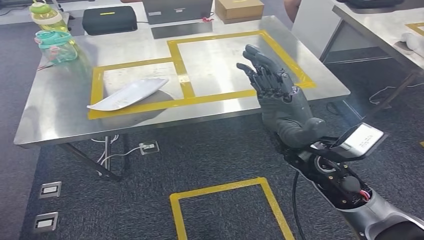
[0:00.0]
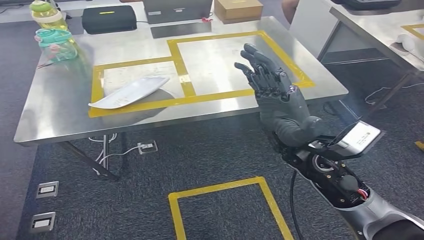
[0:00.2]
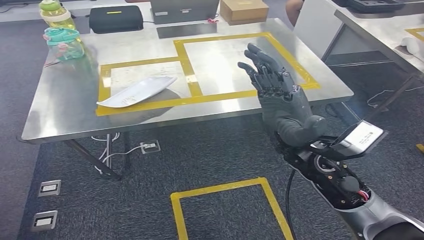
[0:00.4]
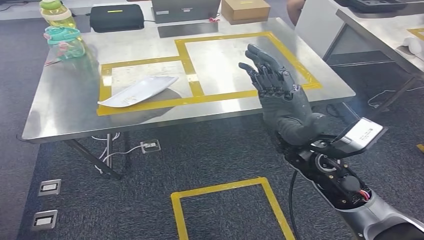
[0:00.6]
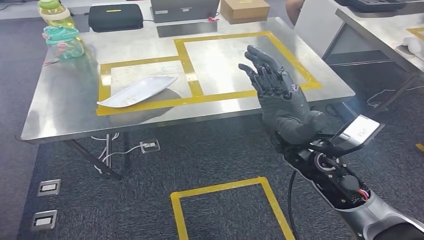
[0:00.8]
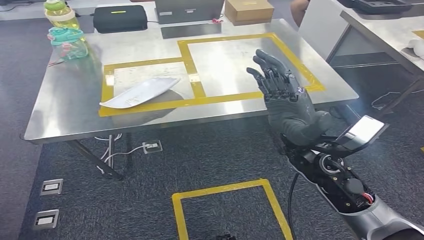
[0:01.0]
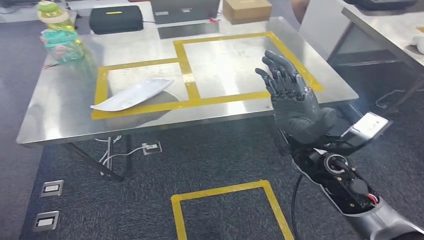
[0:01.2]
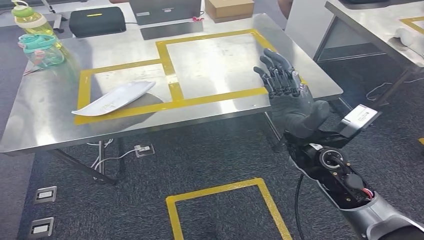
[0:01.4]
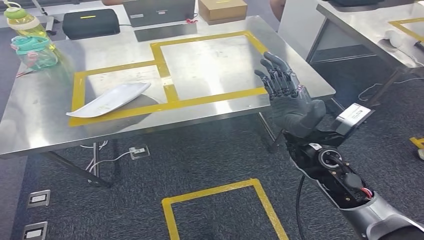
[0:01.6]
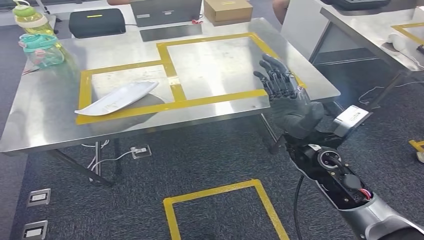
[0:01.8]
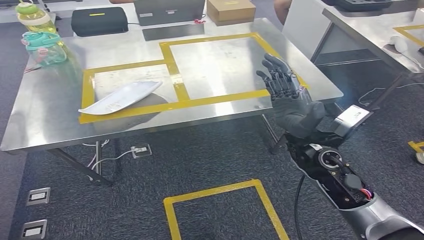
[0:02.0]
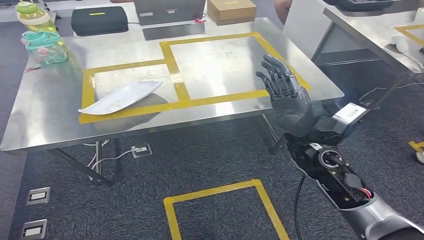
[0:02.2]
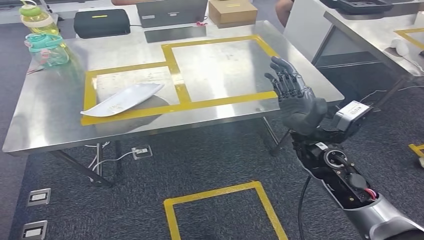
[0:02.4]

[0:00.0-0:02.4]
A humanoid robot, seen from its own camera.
Step, 0:00.0 to 0:02.4: Move to the initial position of the workbench.
